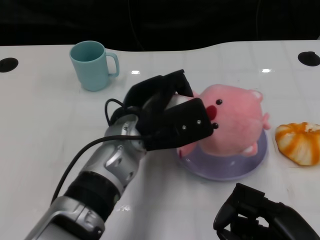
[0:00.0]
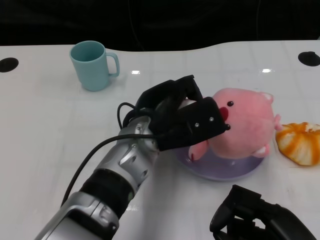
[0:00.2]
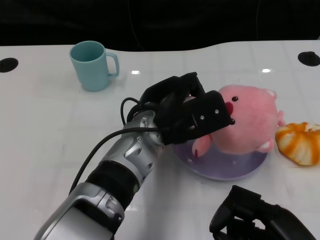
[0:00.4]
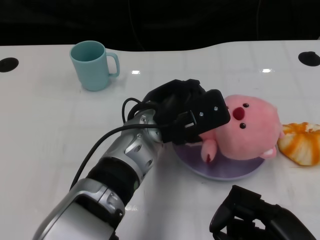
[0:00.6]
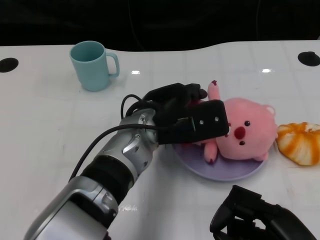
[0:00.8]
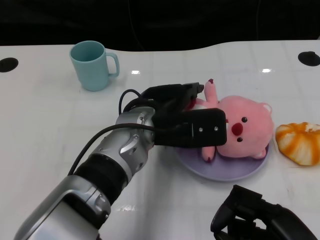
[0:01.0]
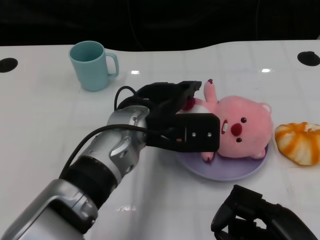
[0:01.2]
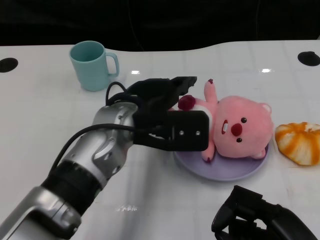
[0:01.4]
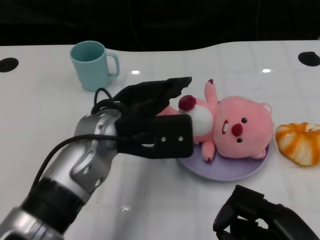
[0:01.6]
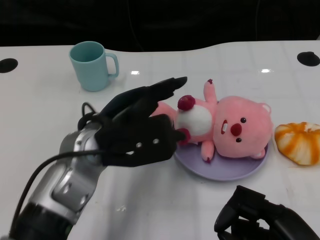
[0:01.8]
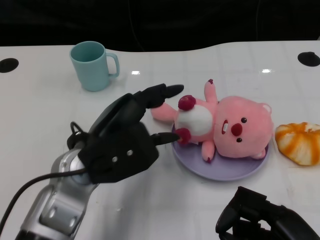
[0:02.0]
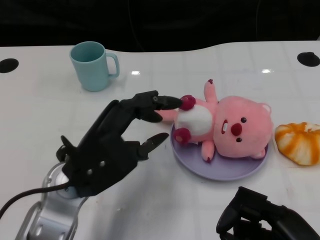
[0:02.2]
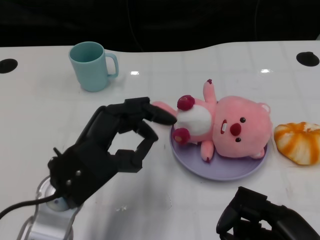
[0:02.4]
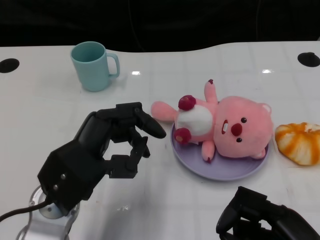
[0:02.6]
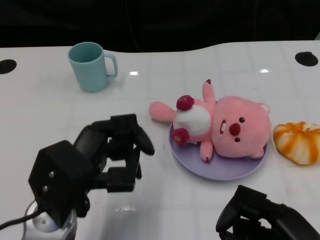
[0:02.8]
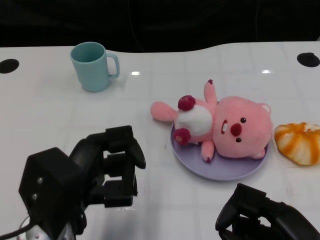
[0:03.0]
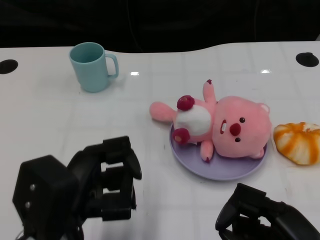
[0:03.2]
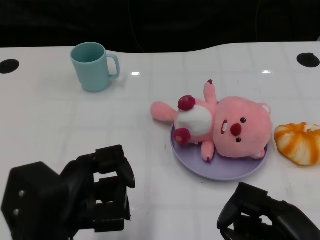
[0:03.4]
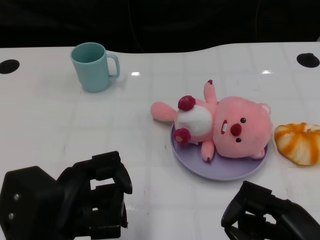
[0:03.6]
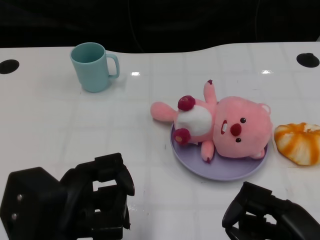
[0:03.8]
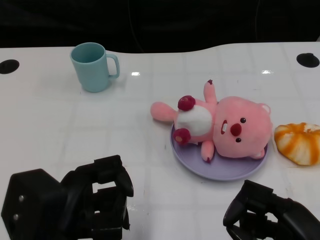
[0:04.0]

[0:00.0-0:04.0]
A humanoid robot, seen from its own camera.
Task of the whole recording: Pick up the doll on one side of the plate and place it into the plate.
0:01.4 to 0:02.6: The left hand travels to the left and backward by approximately 10 cm.
0:02.6 to 0:04.0: The left hand travels backward by approximately 5 cm.
